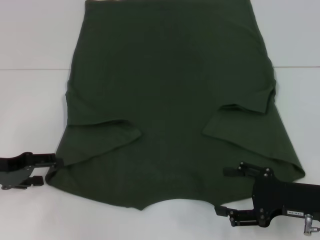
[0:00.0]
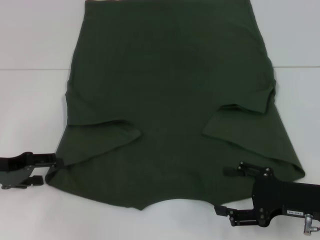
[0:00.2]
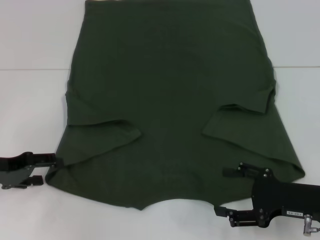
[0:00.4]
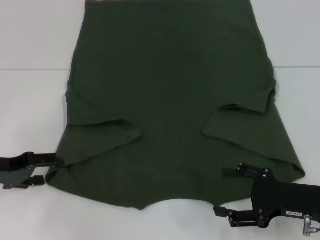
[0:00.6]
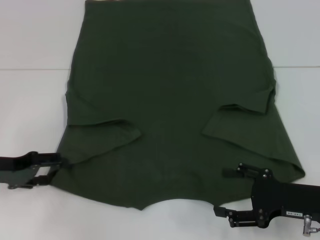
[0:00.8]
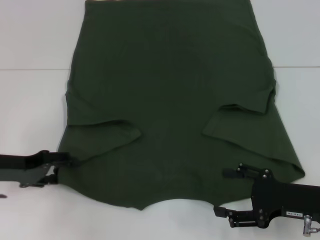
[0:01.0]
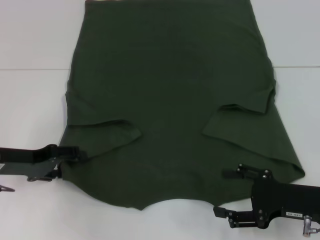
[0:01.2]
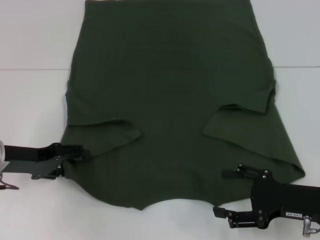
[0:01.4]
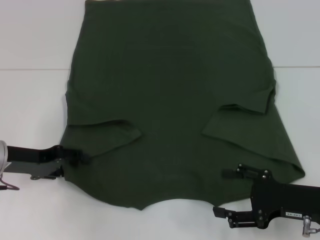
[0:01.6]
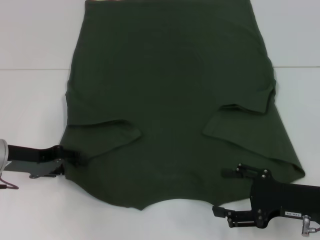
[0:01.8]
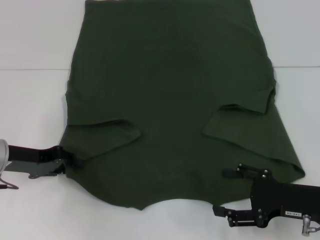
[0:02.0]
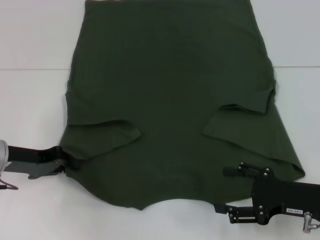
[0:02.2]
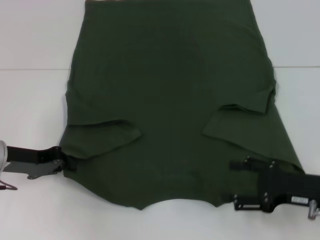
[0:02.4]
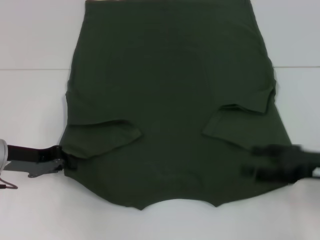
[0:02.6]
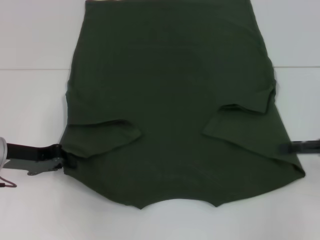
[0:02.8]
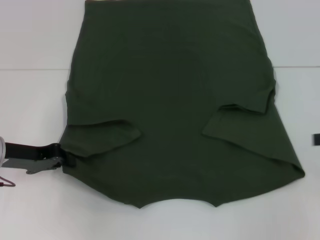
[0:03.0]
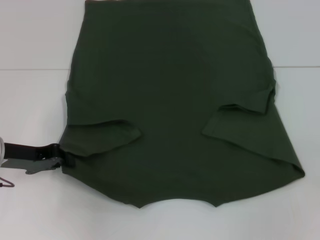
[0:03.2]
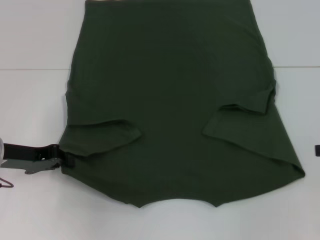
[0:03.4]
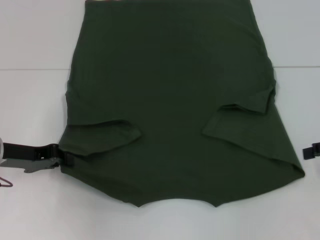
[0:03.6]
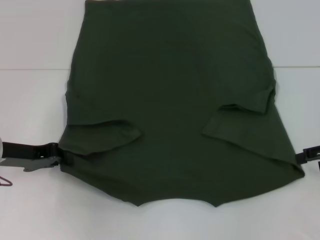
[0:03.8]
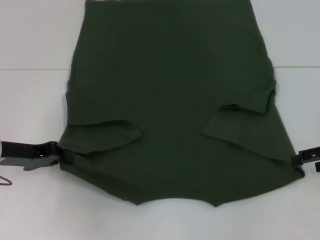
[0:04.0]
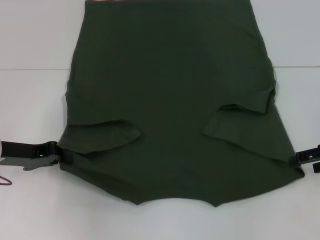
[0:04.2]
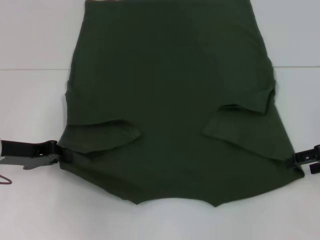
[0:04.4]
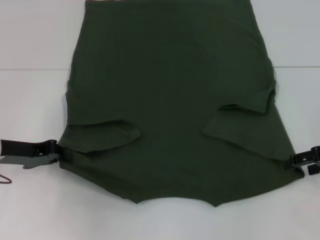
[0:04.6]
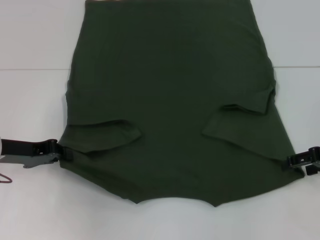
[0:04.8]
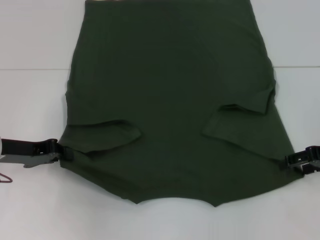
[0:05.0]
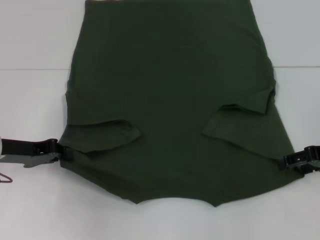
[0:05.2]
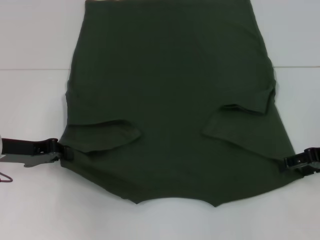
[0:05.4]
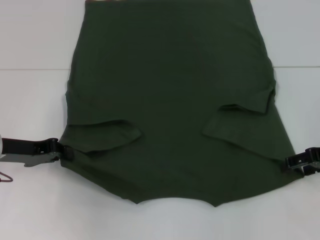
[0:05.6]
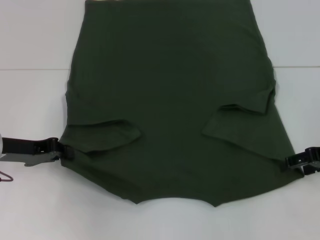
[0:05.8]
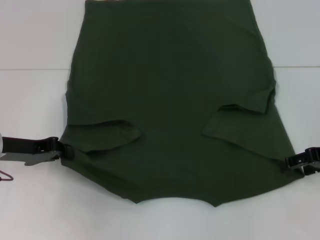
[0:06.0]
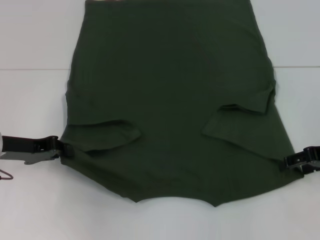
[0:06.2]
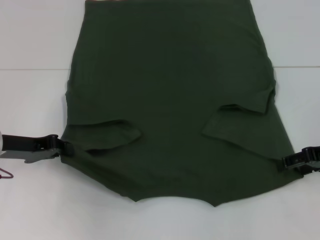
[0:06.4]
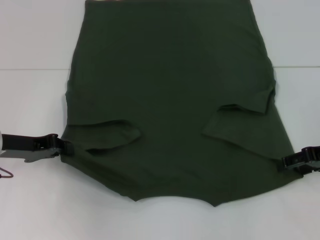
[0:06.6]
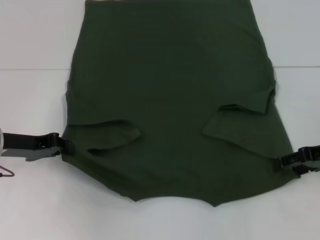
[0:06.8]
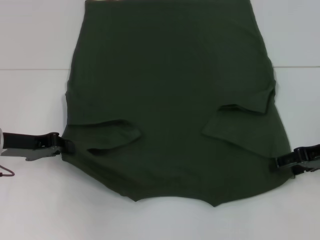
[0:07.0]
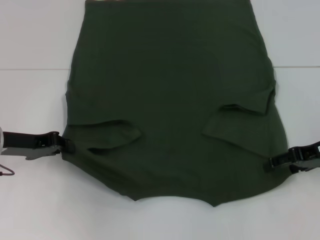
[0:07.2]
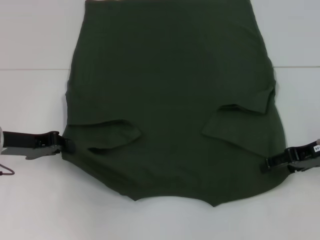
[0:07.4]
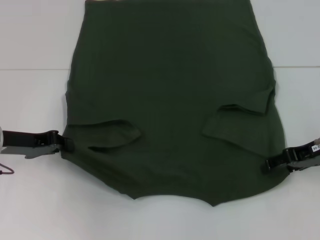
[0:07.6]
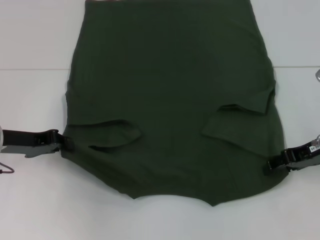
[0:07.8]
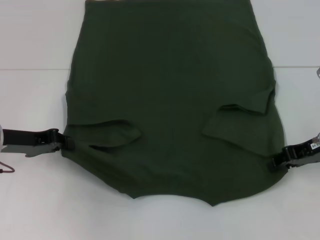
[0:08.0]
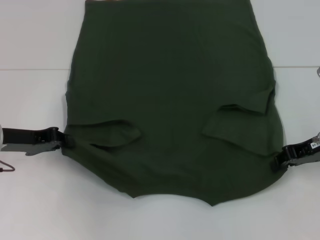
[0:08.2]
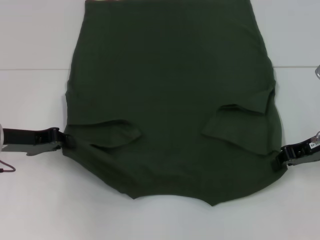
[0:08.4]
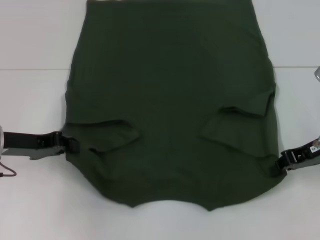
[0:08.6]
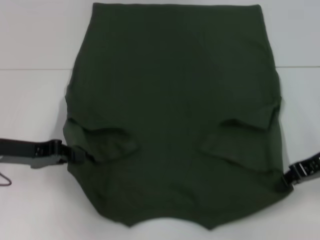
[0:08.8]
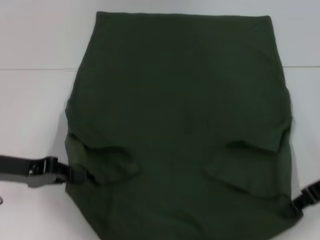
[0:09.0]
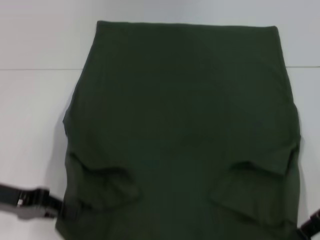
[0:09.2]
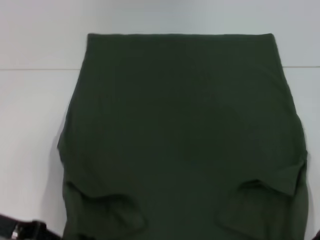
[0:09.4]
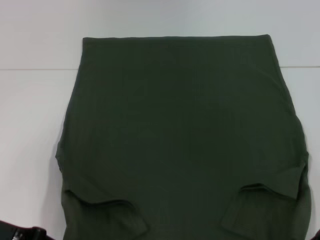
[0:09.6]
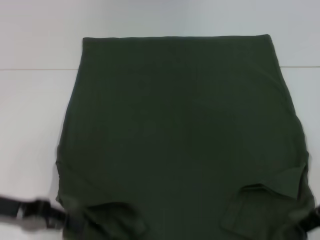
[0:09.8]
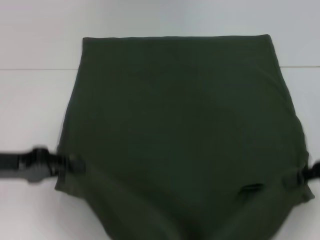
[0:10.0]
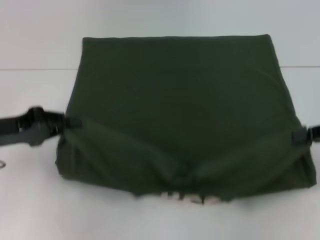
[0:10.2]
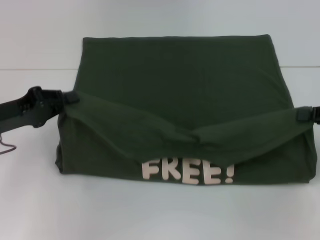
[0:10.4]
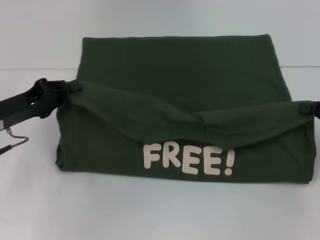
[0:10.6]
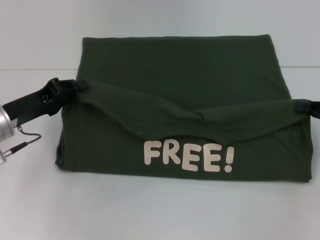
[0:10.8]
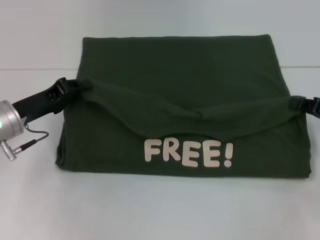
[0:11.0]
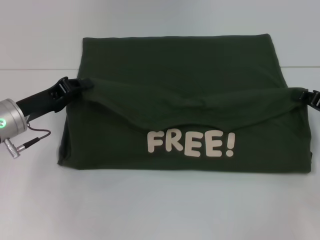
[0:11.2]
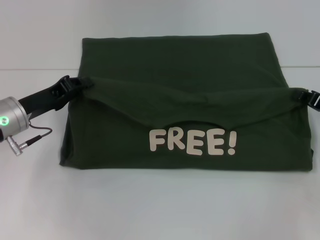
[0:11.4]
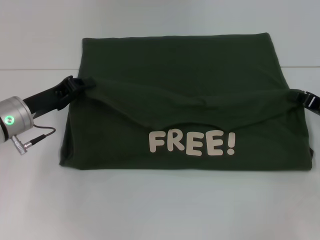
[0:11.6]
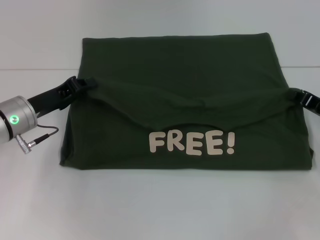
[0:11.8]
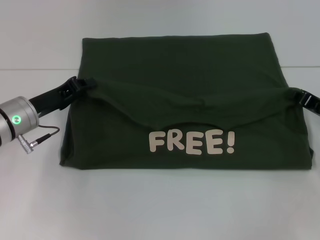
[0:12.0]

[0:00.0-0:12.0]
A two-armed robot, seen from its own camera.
Step, 0:00.0 to 0:02.4: Grab the bottom left corner with your left hand.
Step, 0:02.6 to 0:08.6: Grab the bottom right corner with your right hand.
0:00.0 to 0:01.6: The grippers move only a little.
0:01.6 to 0:03.0: The right gripper moves to the right, upward and forward, about 15 cm, while the left gripper closes up.
0:03.0 to 0:04.4: The right gripper ends up roughly 5 cm from where it was.
0:04.4 to 0:07.6: There are only small adjustments of the grippers.
0:07.6 to 0:09.0: The right gripper closes up.
0:09.0 to 0:10.4: The right gripper shifts about 5 cm to the right.
0:10.4 to 0:12.0: The right gripper shifts about 10 cm downward. The left gripper heads to the right, covering roughly 5 cm.

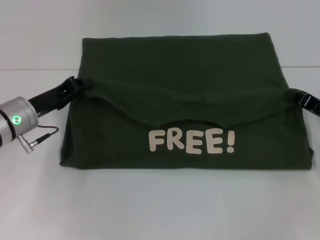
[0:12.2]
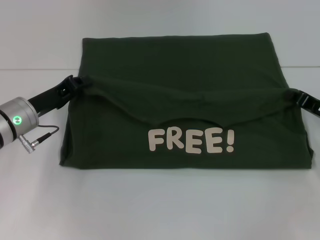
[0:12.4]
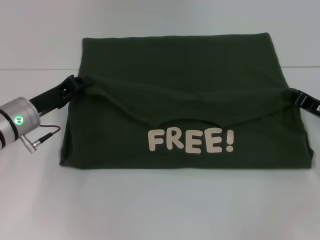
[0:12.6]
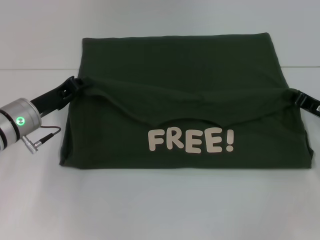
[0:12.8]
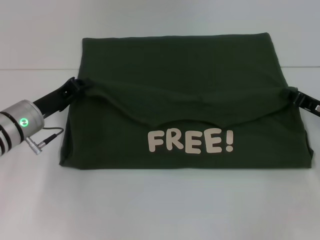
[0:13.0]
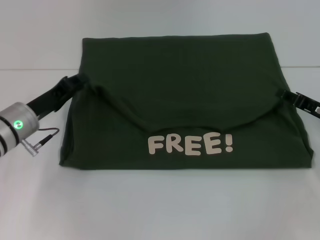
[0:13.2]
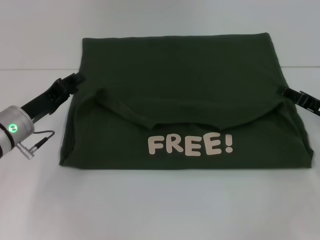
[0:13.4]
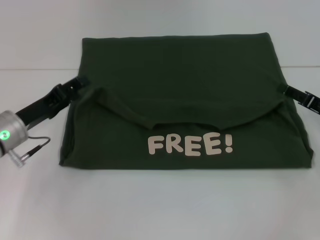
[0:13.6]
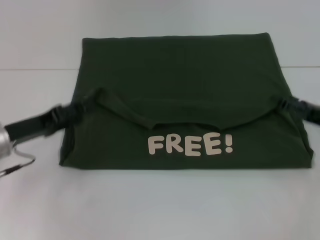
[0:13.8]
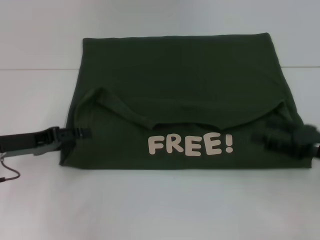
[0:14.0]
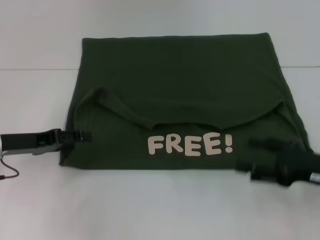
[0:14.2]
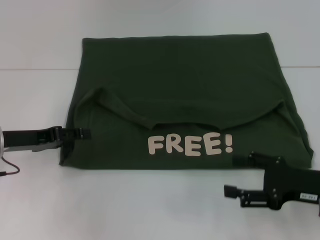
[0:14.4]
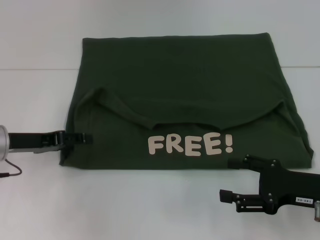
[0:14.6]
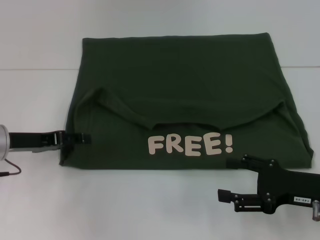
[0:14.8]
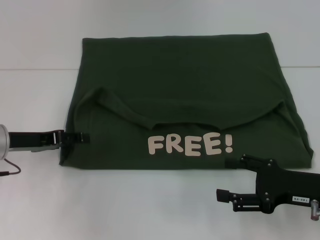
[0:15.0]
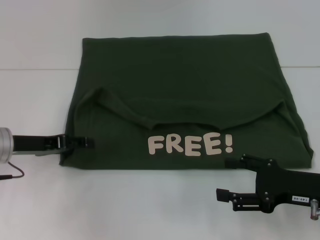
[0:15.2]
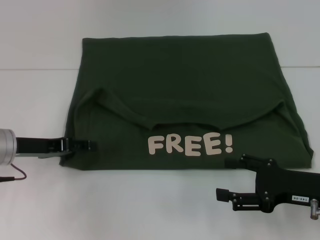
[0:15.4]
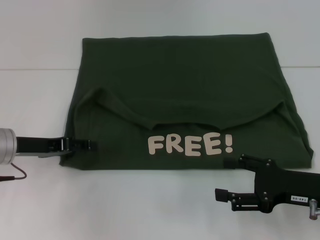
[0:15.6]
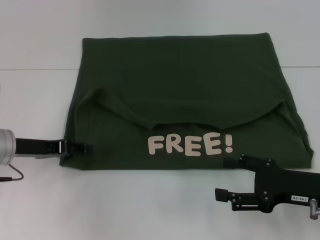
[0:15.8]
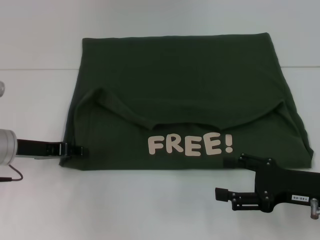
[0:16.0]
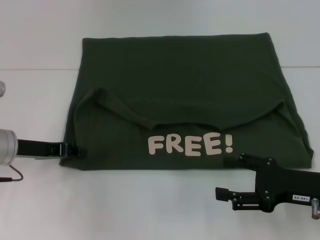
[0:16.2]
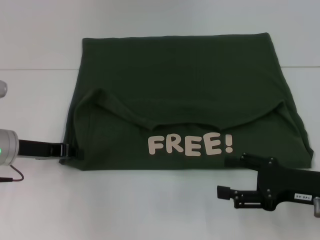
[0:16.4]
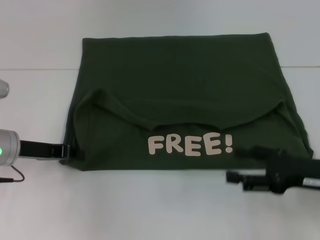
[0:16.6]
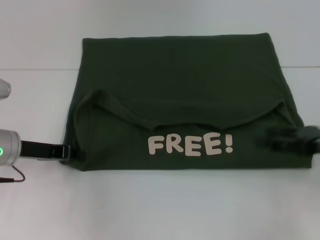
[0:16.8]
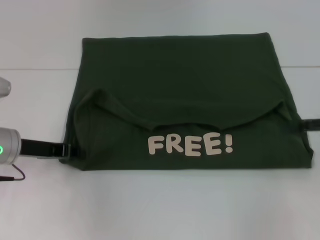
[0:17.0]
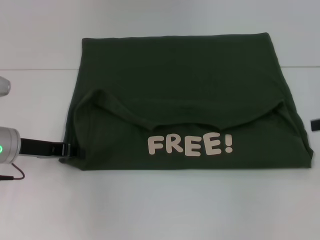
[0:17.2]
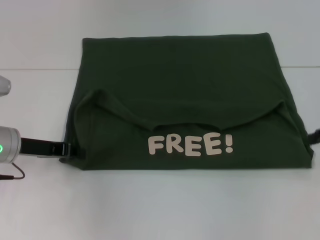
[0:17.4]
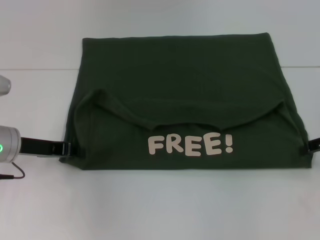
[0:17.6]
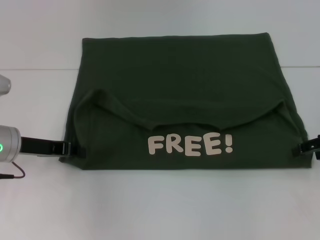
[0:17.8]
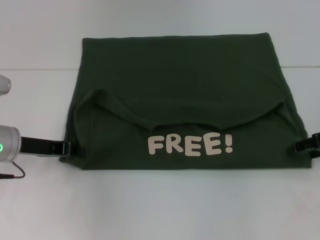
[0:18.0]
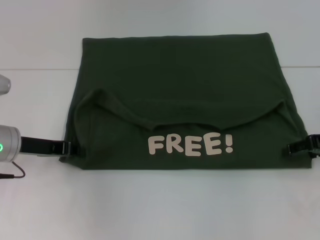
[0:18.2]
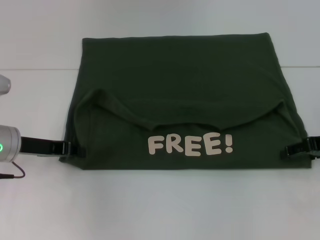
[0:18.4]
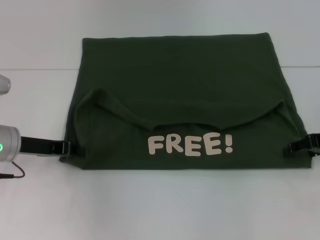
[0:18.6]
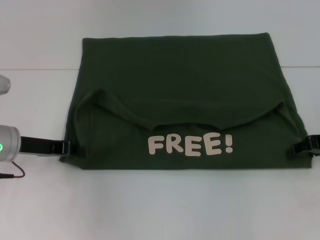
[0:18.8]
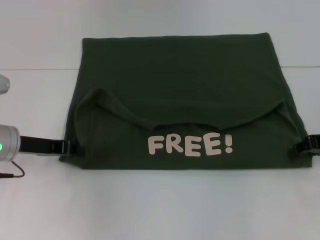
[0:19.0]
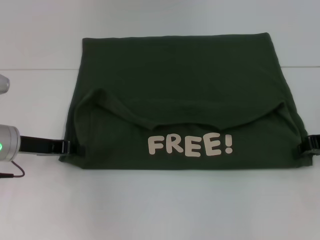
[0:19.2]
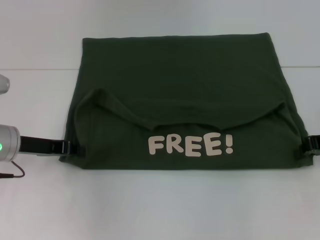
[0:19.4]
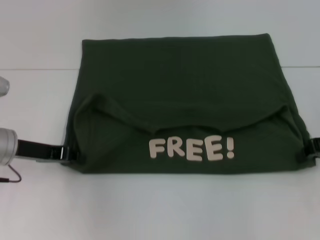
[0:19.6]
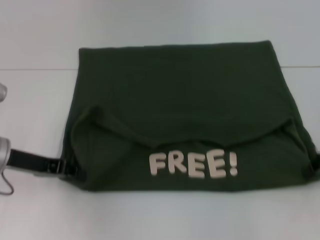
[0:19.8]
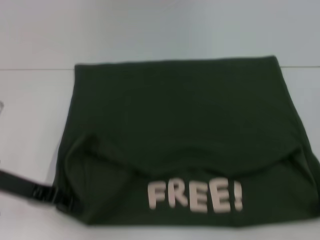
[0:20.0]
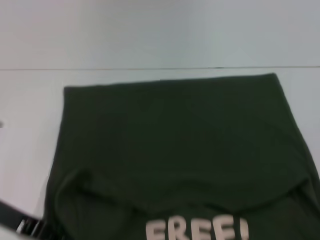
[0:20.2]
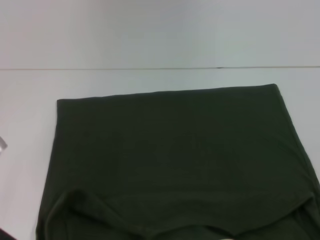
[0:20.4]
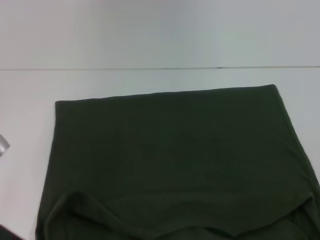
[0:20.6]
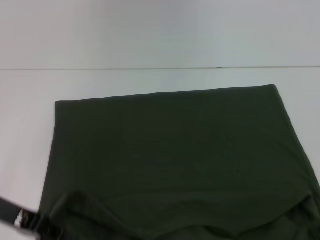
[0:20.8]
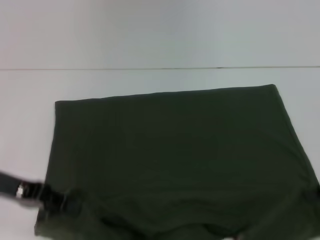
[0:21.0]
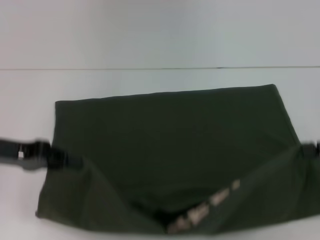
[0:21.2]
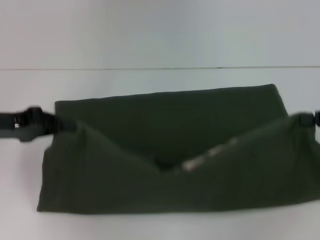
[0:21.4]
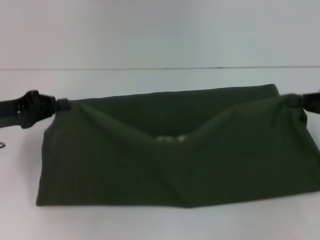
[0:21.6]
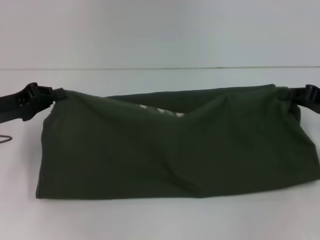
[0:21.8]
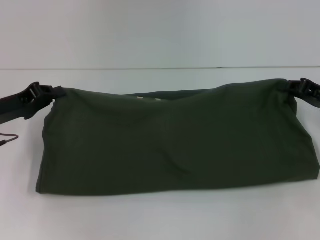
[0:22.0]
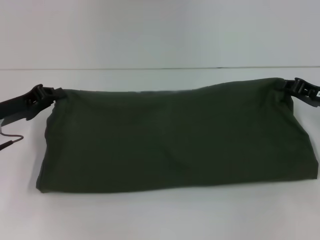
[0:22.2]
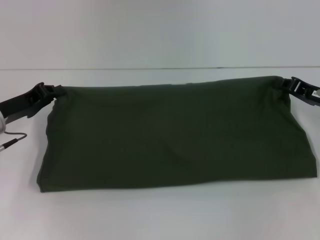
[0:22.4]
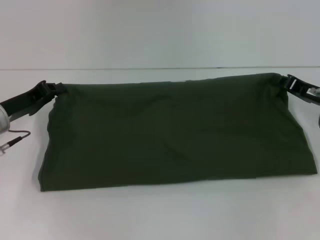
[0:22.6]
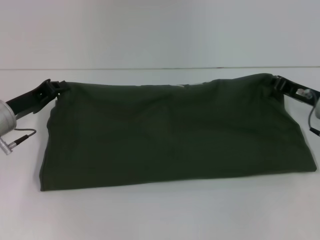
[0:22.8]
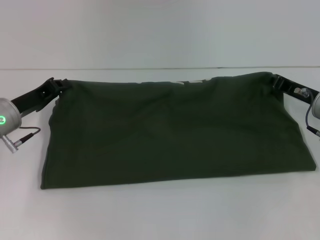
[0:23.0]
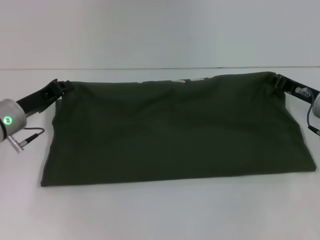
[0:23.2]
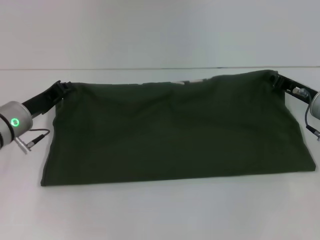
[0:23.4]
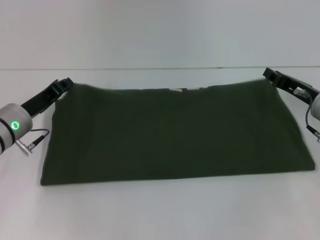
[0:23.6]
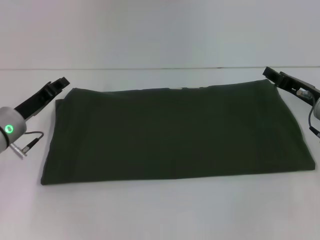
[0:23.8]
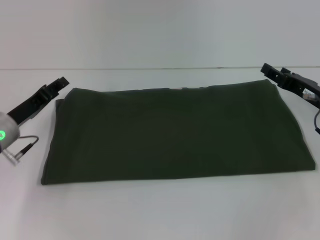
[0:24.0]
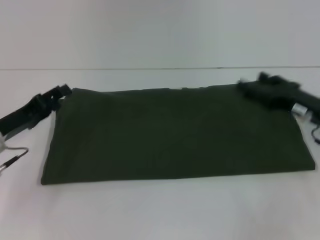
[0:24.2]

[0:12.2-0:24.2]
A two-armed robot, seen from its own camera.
Step, 0:13.8 to 0:20.4: Pull the clothes with your left hand.
Step, 0:13.8 to 0:20.4: Pull the clothes with your right hand.
Step, 0:20.6 to 0:24.0: Fold the clothes with your right hand.
0:12.2 to 0:13.8: The left gripper shifts by about 5 cm, and opens. The right gripper opens its fingers.
0:13.8 to 0:15.2: The right gripper moves to the left and backward, some 10 cm.
0:15.2 to 0:16.6: The left gripper closes up.
0:16.6 to 0:18.2: The right gripper moves forward, roughly 10 cm.
0:18.2 to 0:19.8: The right gripper closes up.
0:19.8 to 0:21.2: The left gripper shifts by some 5 cm.
0:21.2 to 0:22.6: The right gripper heads downward, to the left and forward, covering roughly 10 cm, while the left gripper travels downward and forward by roughly 10 cm.
0:22.6 to 0:24.2: The left gripper opens up. Meanwhile the right gripper opens.
